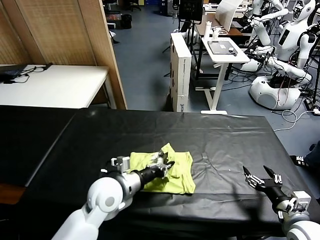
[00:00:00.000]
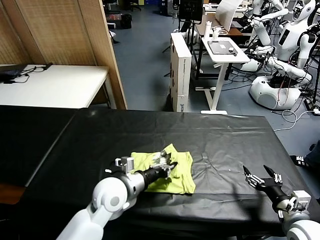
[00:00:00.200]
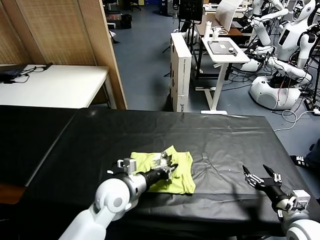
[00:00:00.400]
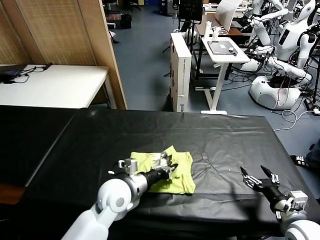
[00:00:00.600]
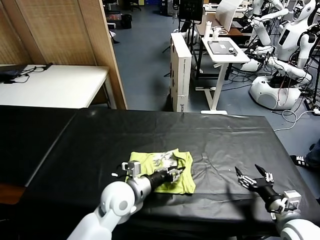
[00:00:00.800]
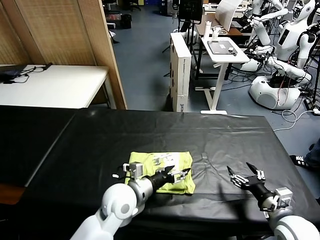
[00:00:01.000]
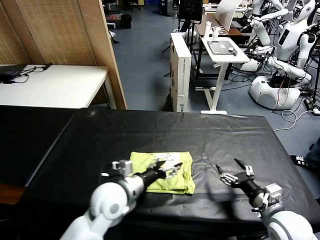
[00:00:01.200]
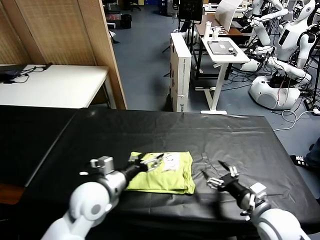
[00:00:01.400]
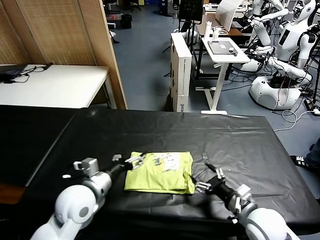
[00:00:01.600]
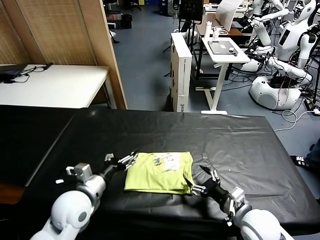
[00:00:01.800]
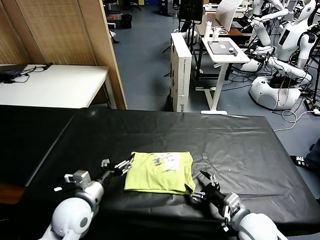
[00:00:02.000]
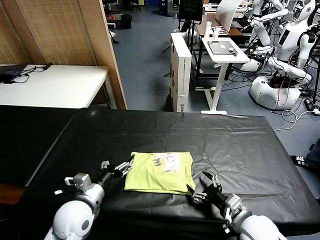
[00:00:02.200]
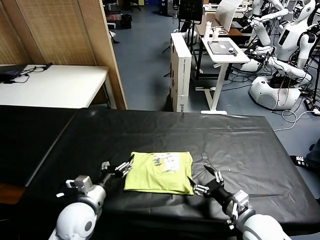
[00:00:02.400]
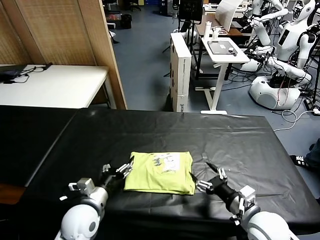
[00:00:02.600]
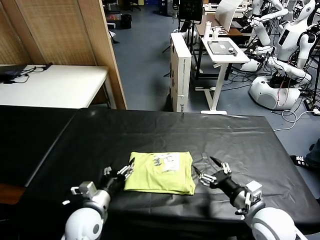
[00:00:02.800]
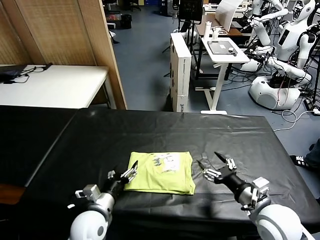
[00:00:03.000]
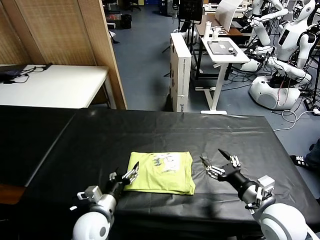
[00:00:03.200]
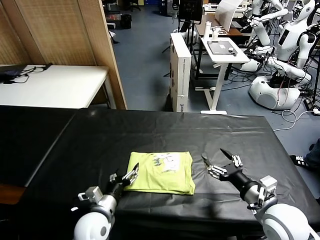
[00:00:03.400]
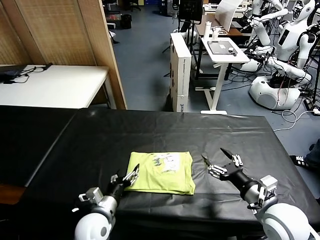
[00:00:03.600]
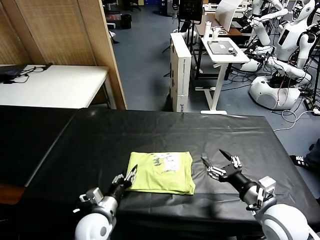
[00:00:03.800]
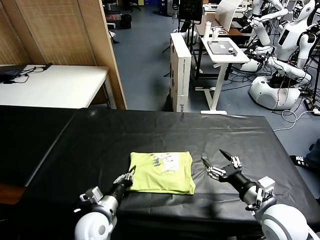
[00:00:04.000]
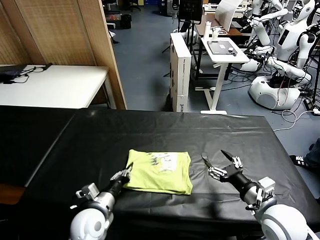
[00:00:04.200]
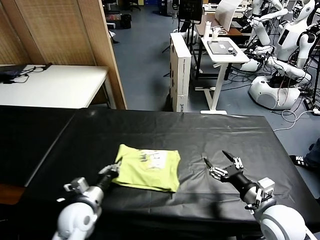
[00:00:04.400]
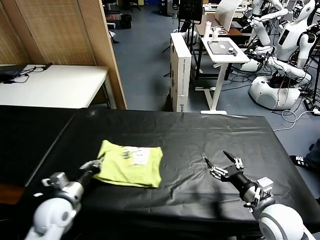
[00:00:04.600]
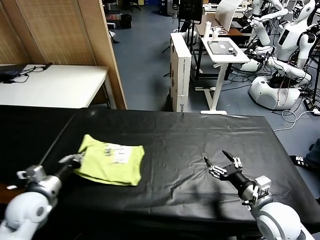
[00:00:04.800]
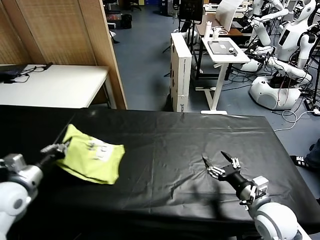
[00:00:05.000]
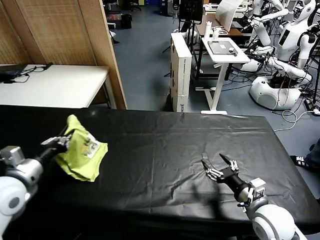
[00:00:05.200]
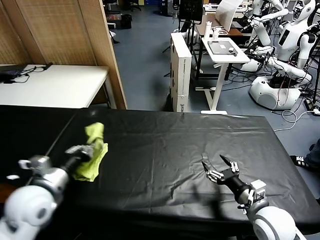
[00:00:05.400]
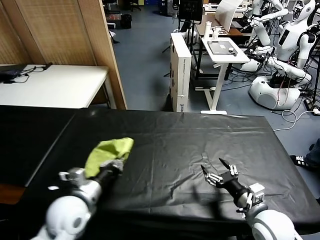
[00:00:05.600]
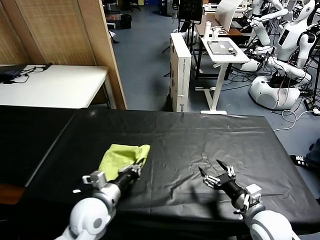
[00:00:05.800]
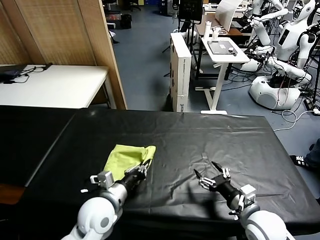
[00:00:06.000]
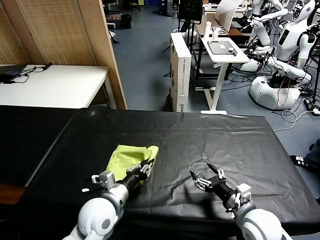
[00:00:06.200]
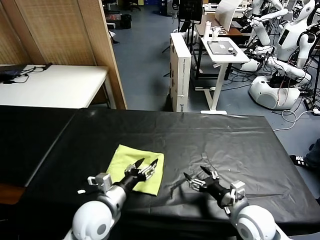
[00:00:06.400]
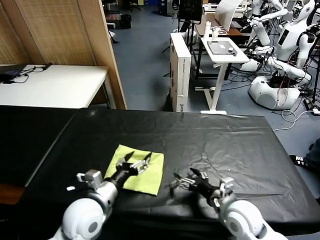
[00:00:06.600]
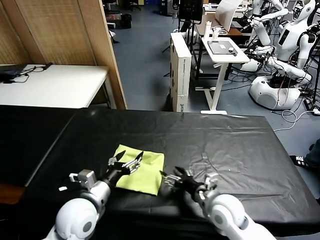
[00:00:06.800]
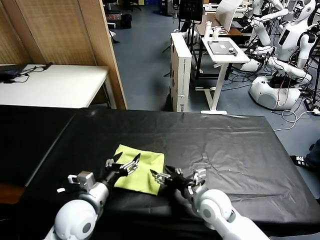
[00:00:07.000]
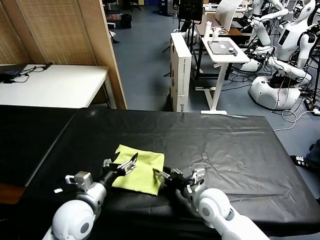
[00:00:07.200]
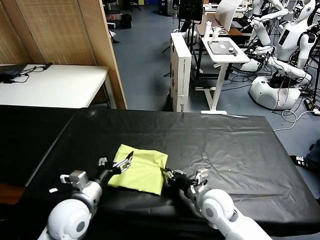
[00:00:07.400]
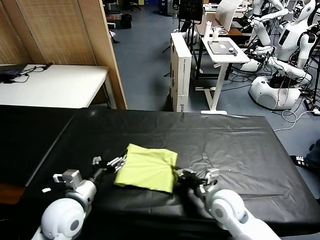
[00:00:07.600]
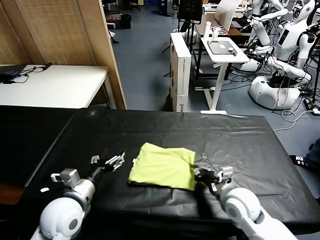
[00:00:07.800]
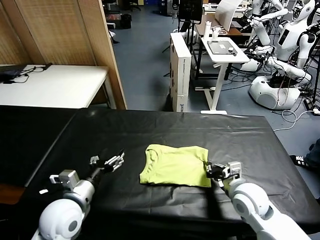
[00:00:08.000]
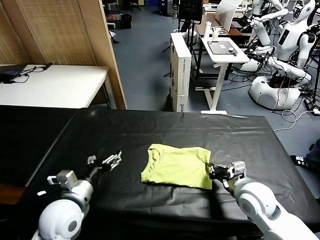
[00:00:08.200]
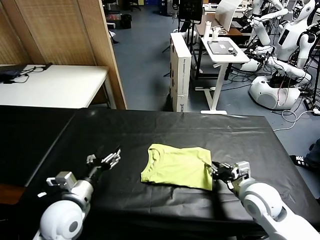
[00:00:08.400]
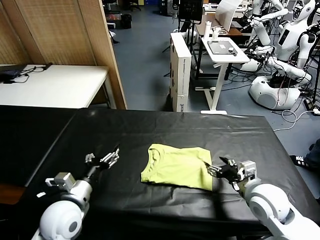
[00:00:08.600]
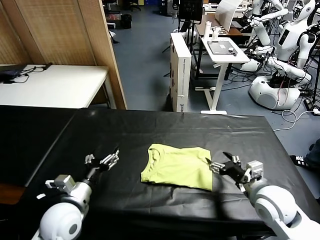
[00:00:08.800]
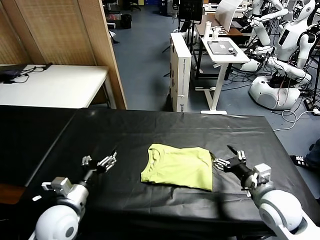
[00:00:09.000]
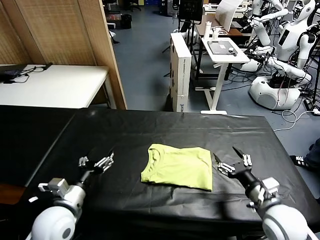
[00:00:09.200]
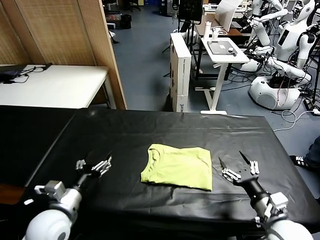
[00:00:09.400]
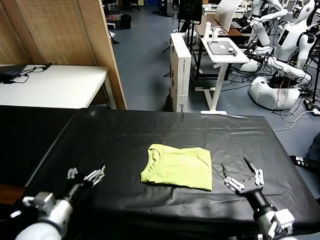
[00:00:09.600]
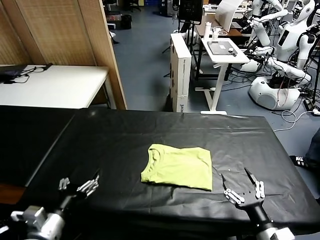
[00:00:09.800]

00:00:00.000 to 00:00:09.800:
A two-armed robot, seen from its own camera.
Task of the whole recording: fold and organize the clothes.
Step, 00:00:01.200 to 00:00:06.400: Flip the folded clothes over with left gripper.
Step, 00:00:06.600 to 00:00:08.600: Drag the clothes to the center of the table.
00:00:00.000 to 00:00:01.400: The left gripper opens up, while the right gripper travels to the left by approximately 10 cm.
00:00:01.400 to 00:00:02.800: The left gripper heads downward, covering some 10 cm.
00:00:02.800 to 00:00:04.200: The left gripper closes.
00:00:04.200 to 00:00:05.600: The left gripper heads upward, covering some 10 cm, and reaches approximately 20 cm to the left, then returns.
00:00:05.600 to 00:00:07.000: The left gripper opens its fingers, while the right gripper moves to the left and forward, approximately 15 cm.
00:00:07.000 to 00:00:08.400: The right gripper shifts about 15 cm to the right and upward, and closes its fingers.
00:00:08.400 to 00:00:09.800: The left gripper moves backward, about 10 cm. Meanwhile the right gripper is displaced backward by roughly 15 cm, and opens its fingers.

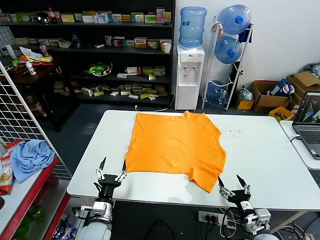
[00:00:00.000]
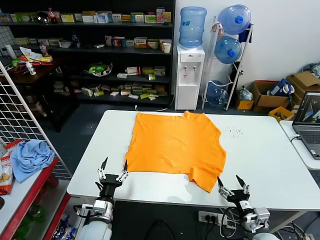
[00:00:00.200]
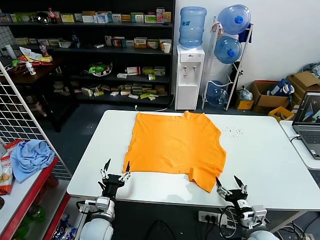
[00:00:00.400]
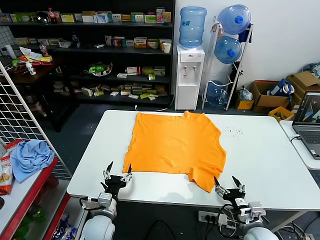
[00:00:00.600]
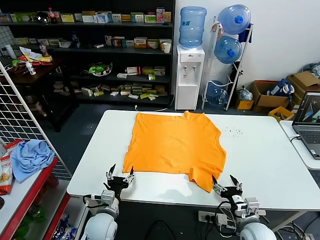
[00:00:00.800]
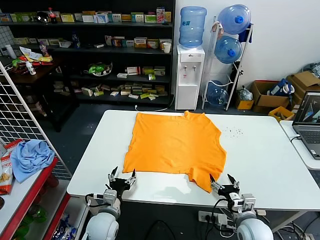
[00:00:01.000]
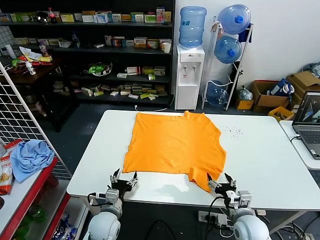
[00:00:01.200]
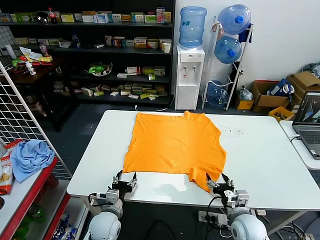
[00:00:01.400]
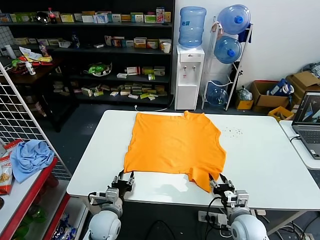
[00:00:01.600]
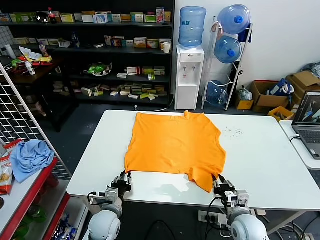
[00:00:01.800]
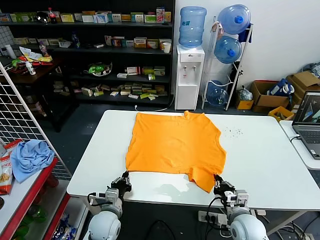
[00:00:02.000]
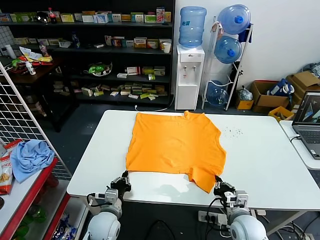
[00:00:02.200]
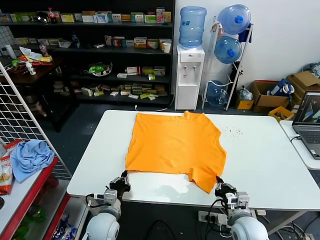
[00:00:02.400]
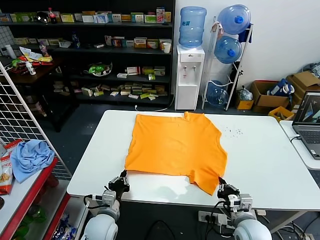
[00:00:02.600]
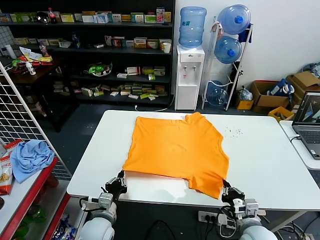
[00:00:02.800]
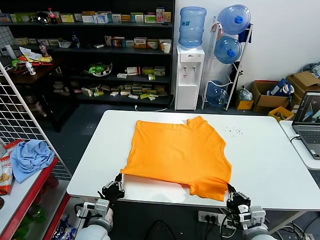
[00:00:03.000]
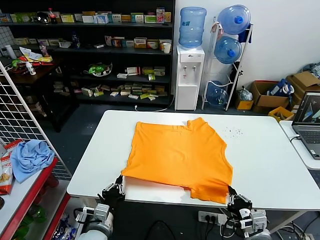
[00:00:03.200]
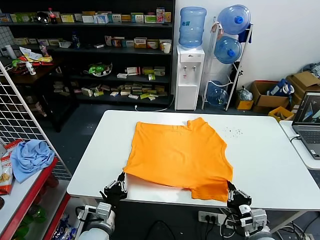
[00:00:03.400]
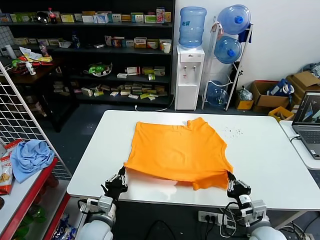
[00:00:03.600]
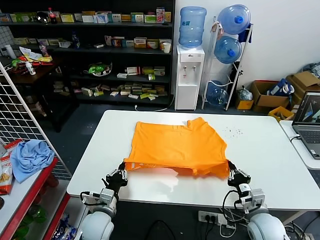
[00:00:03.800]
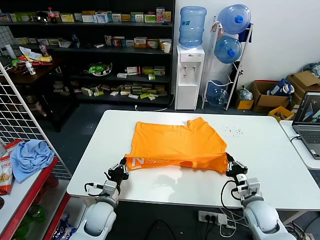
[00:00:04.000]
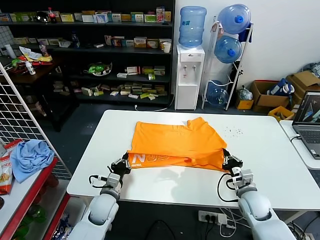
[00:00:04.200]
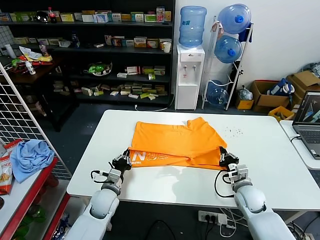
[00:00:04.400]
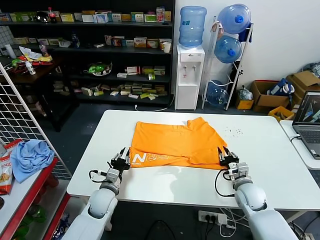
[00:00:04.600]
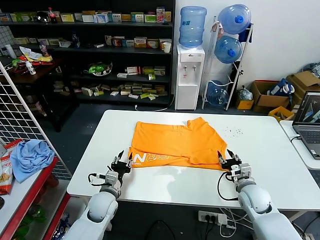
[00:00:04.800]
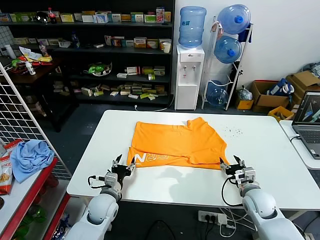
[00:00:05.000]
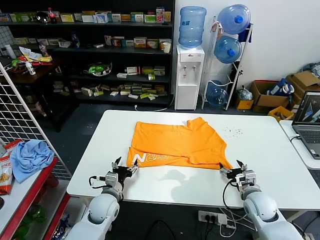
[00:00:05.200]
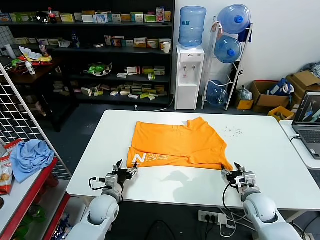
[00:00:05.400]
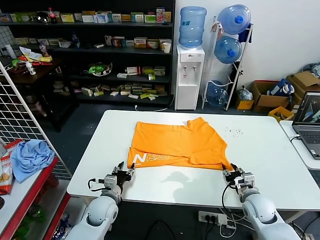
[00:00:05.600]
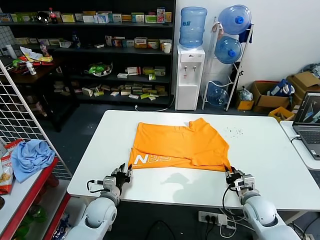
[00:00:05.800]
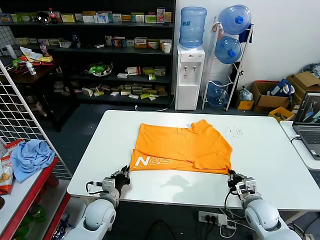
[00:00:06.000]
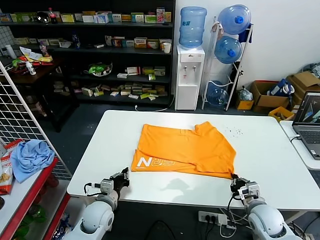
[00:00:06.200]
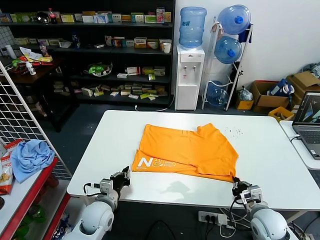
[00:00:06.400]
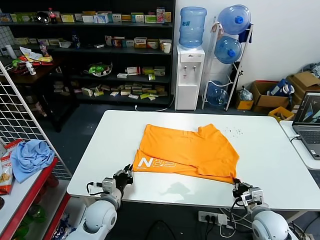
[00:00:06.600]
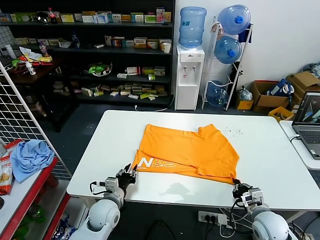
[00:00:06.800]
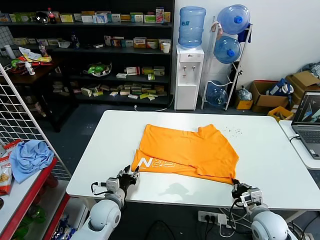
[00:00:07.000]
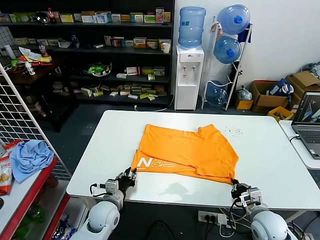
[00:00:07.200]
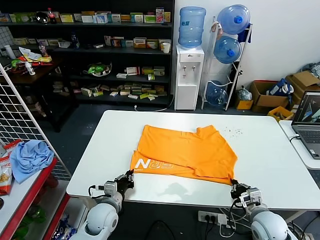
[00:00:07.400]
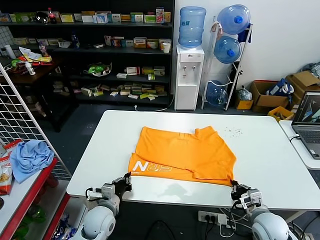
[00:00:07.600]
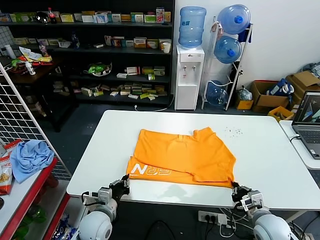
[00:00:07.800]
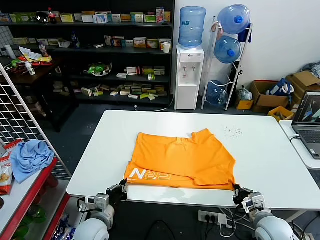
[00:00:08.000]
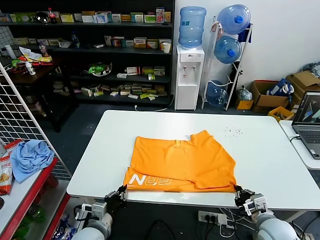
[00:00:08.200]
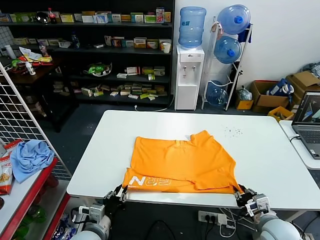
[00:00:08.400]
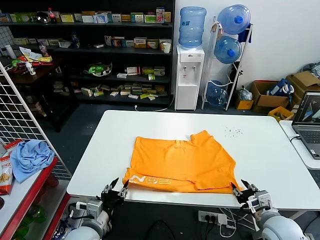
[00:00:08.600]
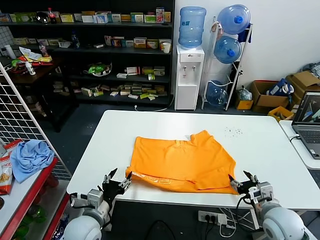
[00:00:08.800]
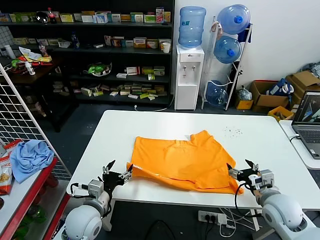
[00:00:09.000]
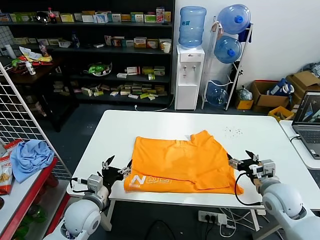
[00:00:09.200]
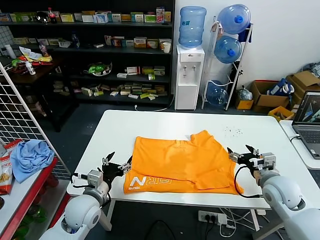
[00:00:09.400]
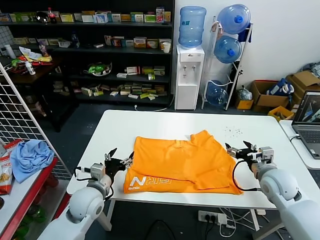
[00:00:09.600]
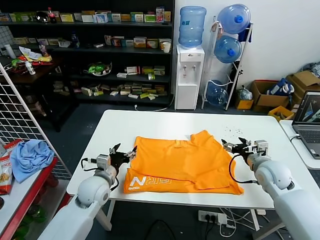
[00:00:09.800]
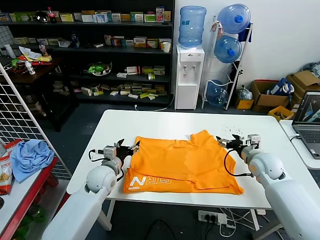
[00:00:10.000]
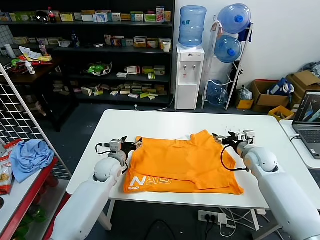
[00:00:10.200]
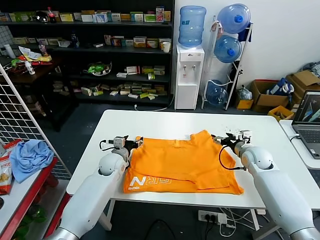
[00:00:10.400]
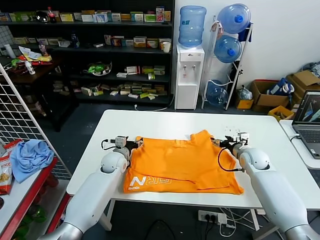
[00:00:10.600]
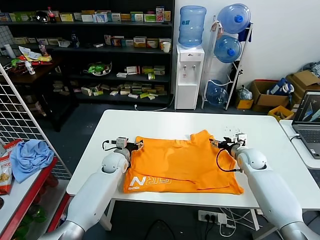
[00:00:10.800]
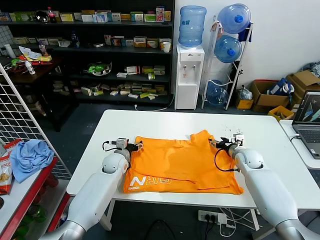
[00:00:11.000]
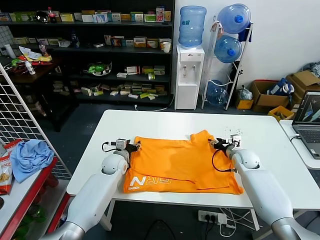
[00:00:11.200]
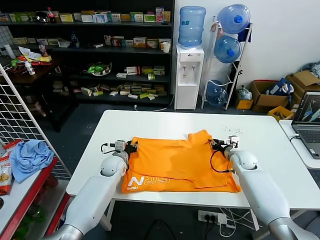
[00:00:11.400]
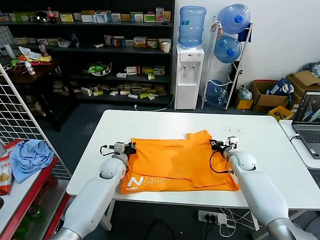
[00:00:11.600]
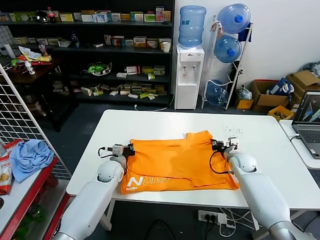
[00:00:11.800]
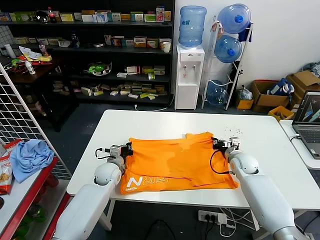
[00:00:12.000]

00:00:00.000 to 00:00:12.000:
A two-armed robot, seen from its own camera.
Task of the whole recording: fold and organize the clothes.
Step, 00:00:00.000 to 00:00:02.400: use both grippers simultaneously to clamp the lower edge of the clothing fabric.
Step, 00:00:02.600 to 00:00:04.800: use both grippers to drag the lower edge of the fabric forward and fold it over the upper edge.
Step, 00:00:05.000 to 00:00:09.000: Drag the clothes downward with both gripper.
Step, 00:00:09.400 to 00:00:11.600: use both grippers simultaneously to clamp the upper edge of the clothing fabric.
00:00:01.600 to 00:00:03.000: Both grippers move backward, roughly 5 cm. The left gripper closes its fingers. Meanwhile the right gripper closes its fingers.
00:00:03.000 to 00:00:04.400: The grippers both shift forward by approximately 15 cm.
00:00:04.400 to 00:00:06.000: The left gripper opens and closes again. Meanwhile the right gripper heads backward, covering roughly 5 cm, and opens, then closes again.
00:00:06.000 to 00:00:07.600: The left gripper opens and closes again.
00:00:07.600 to 00:00:09.000: The two grippers go roughly 10 cm upward. The right gripper opens up. Meanwhile the left gripper travels backward and back again, roughly 10 cm each way, and opens.
00:00:09.000 to 00:00:10.400: Both grippers travel together forward, roughly 20 cm.
00:00:10.400 to 00:00:12.000: The right gripper ends up roughly 5 cm from where it was, and closes, while the left gripper closes up.
